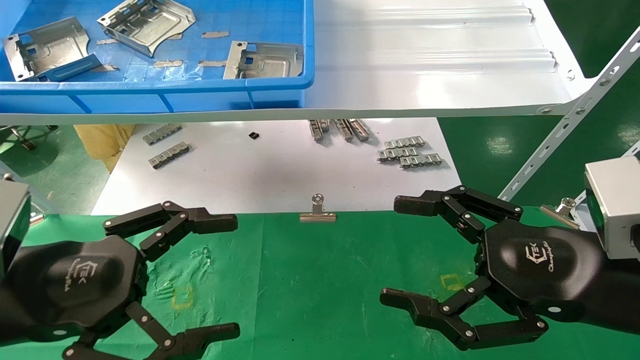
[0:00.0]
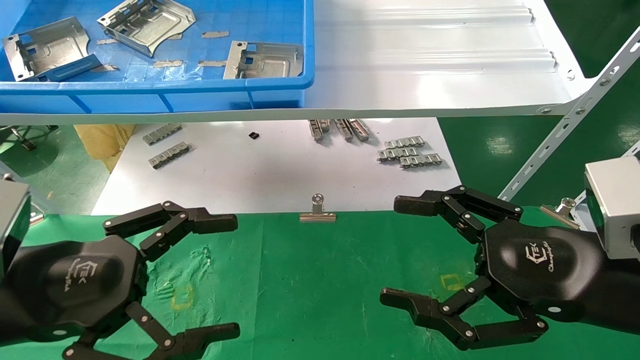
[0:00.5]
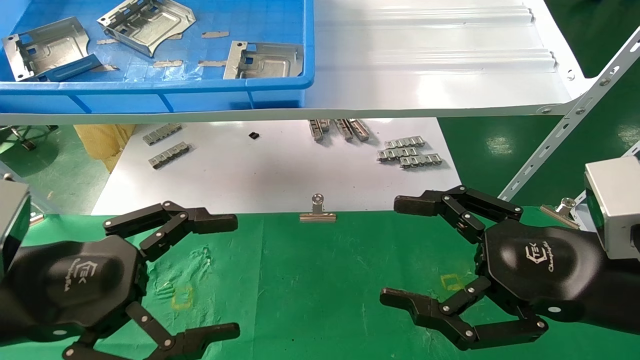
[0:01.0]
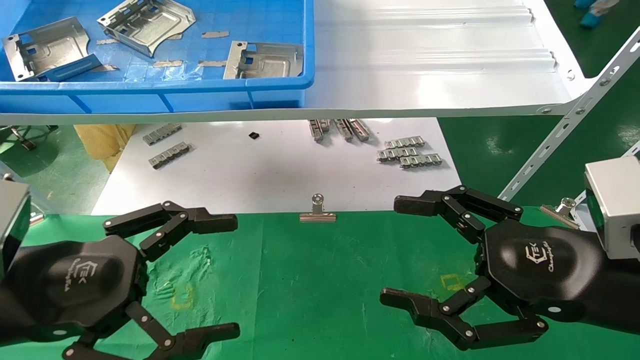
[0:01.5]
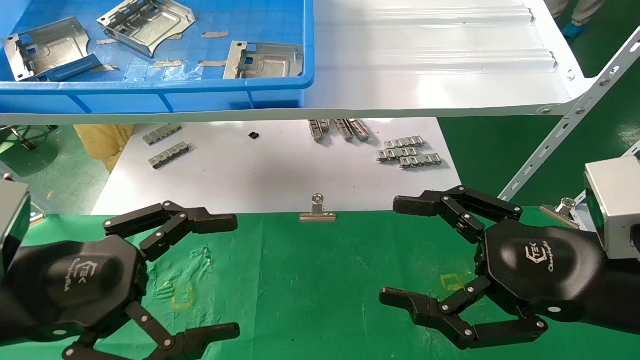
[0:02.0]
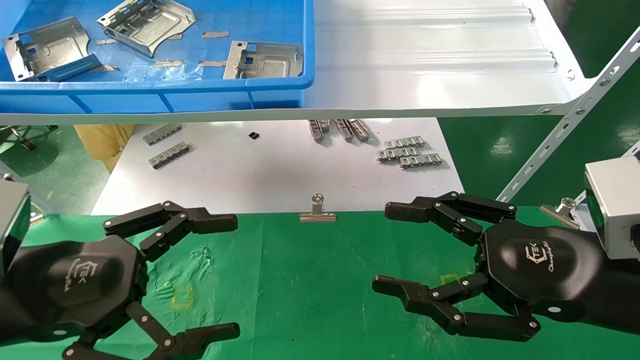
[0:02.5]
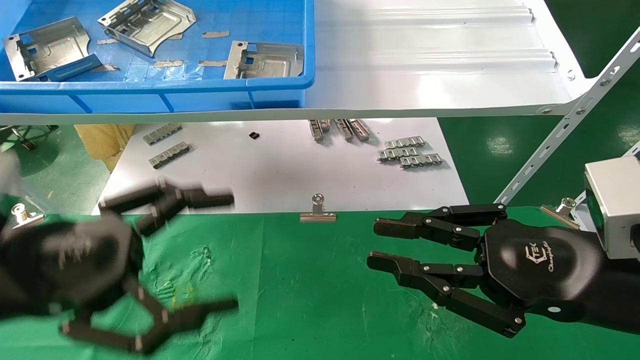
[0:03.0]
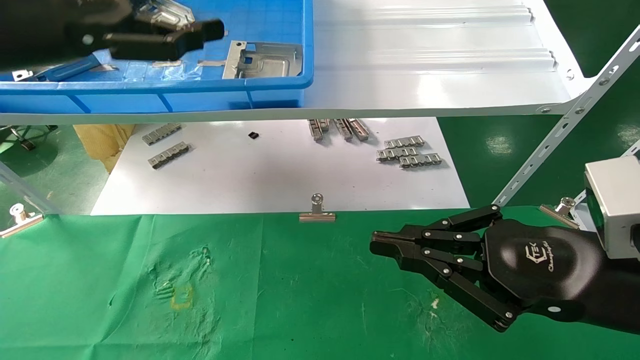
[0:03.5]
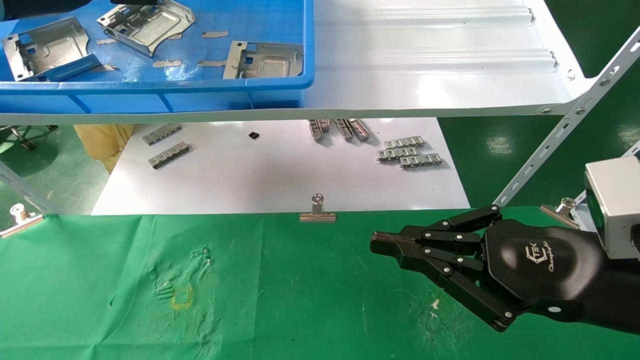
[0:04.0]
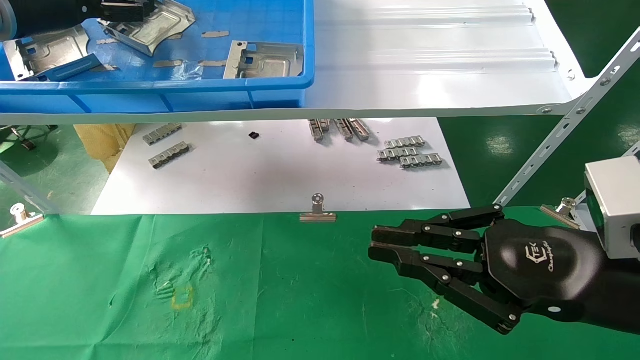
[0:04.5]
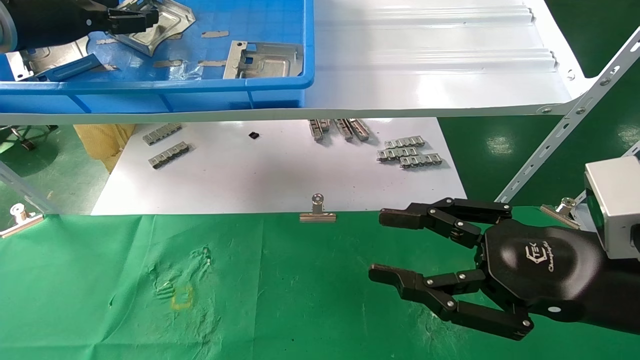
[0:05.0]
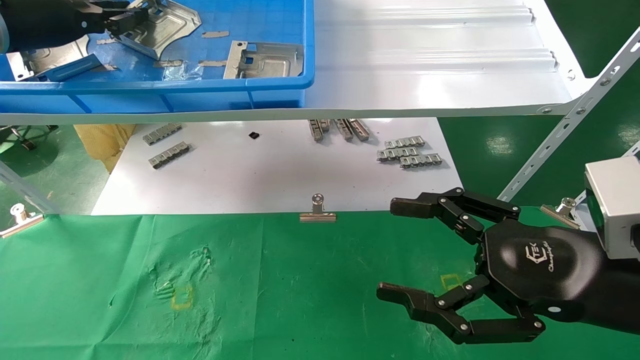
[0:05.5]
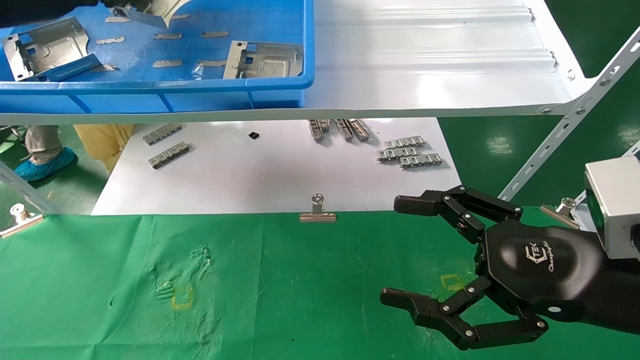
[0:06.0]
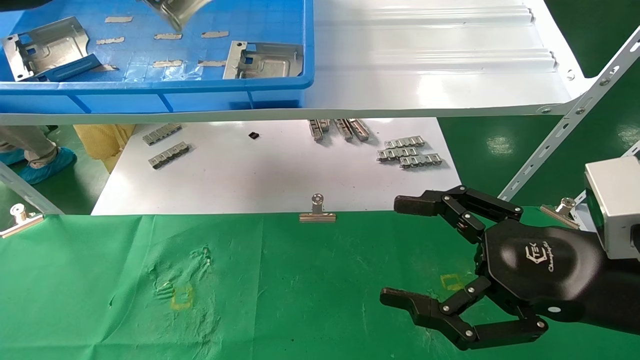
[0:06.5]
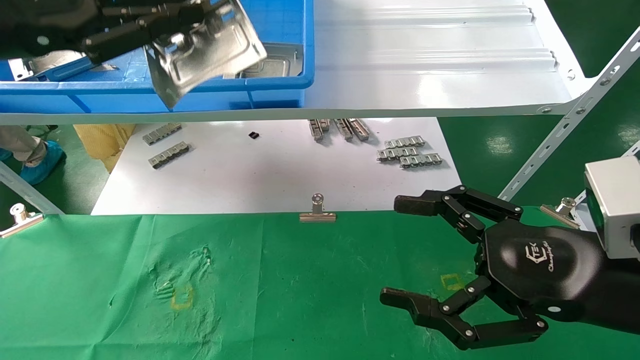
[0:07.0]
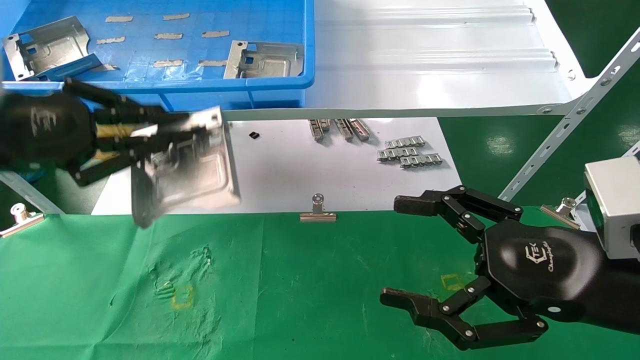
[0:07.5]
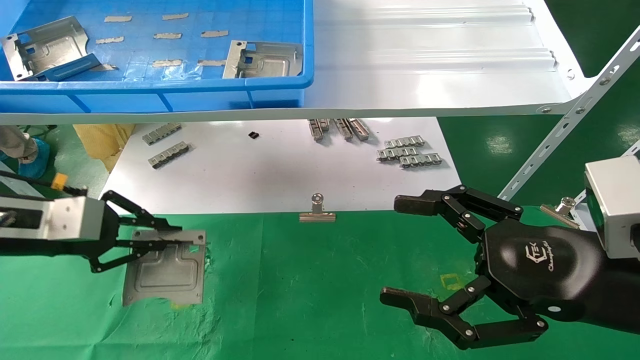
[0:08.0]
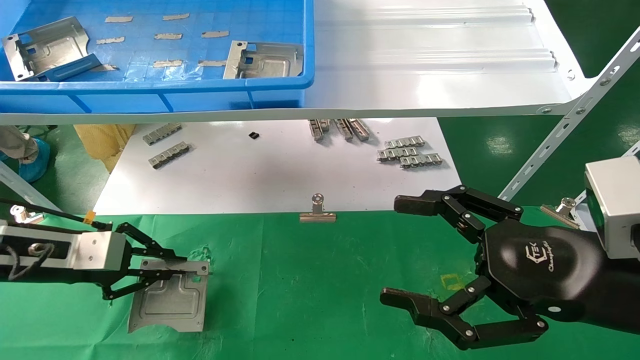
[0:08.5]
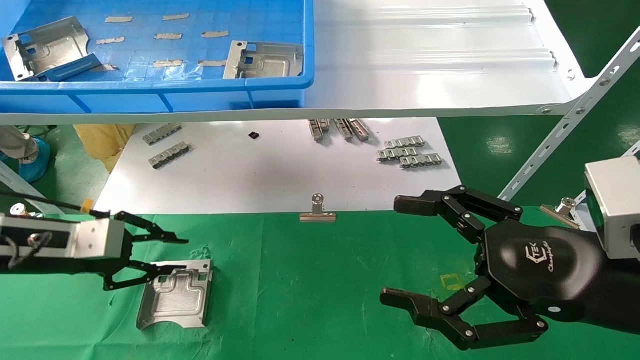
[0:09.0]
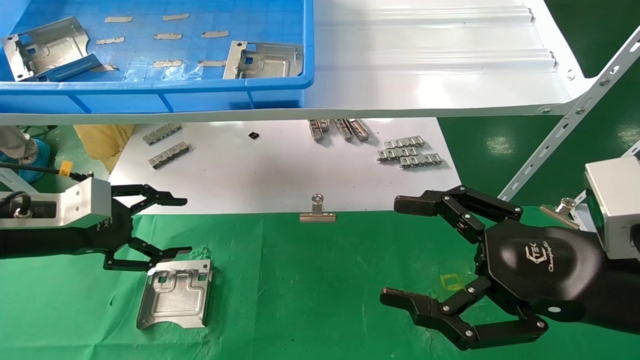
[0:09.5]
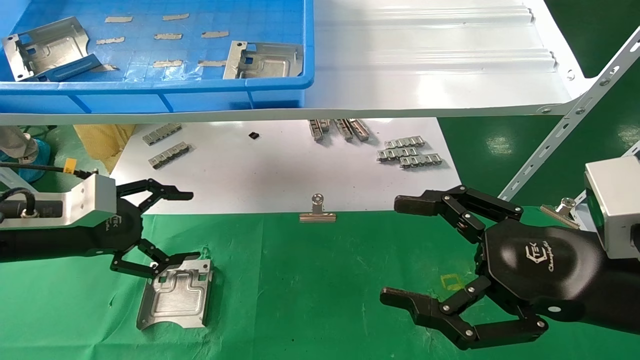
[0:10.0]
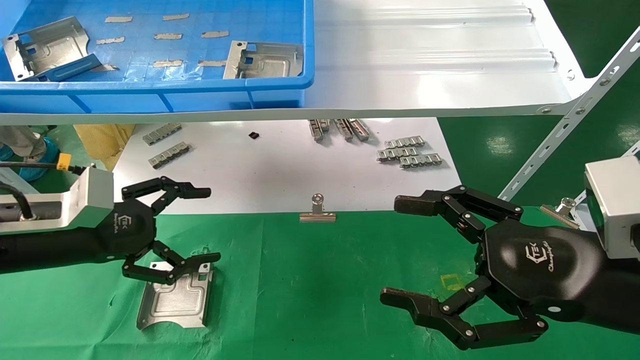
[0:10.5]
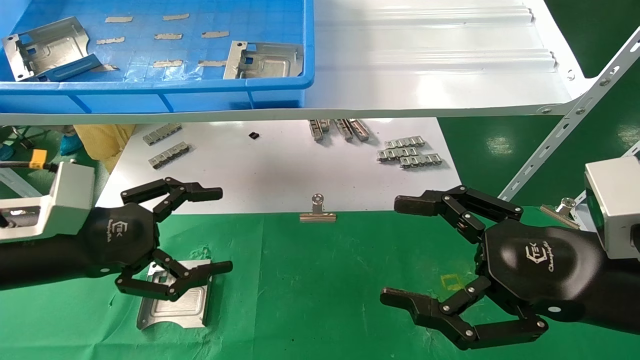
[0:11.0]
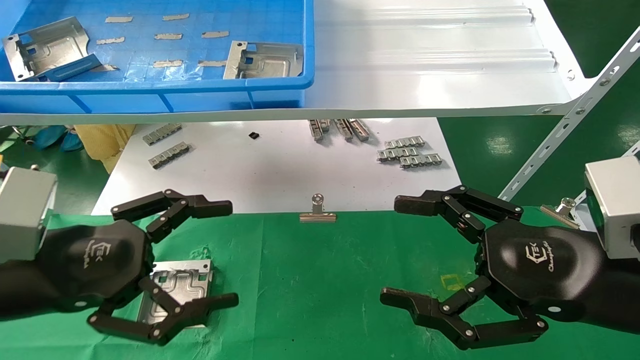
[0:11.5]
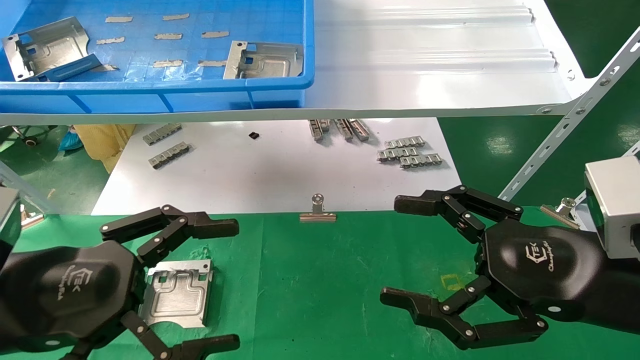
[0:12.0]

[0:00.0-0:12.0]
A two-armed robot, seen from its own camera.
Task of the whole recording: use the mechanical arm to pick up the parts and place them on the table.
Step, 0:03.5 to 0:05.5: Pick up the hard drive bracket from the feeding area.
Step, 0:06.0 to 0:09.0: Place the hard drive bracket into the box.
0:00.0 to 0:02.0: Both grippers stay put.
0:02.0 to 0:04.0: The right gripper closes its fingers. The left gripper goes about 30 cm upward and forward.
0:04.0 to 0:06.0: The right gripper opens its fingers, while the left gripper closes up.
0:06.0 to 0:08.0: The left gripper is displaced downward by approximately 25 cm.
0:08.0 to 0:10.0: The left gripper opens its fingers.
0:10.0 to 0:12.0: The left gripper heads backward and to the right, covering roughly 15 cm.

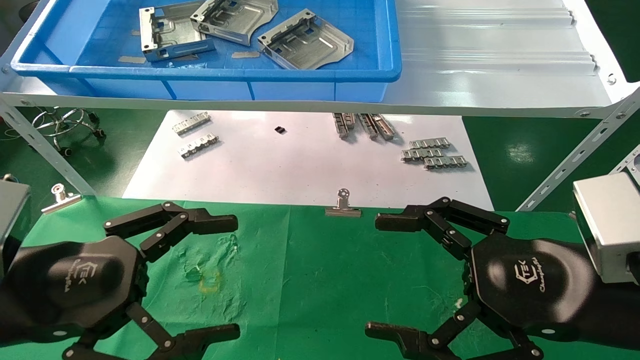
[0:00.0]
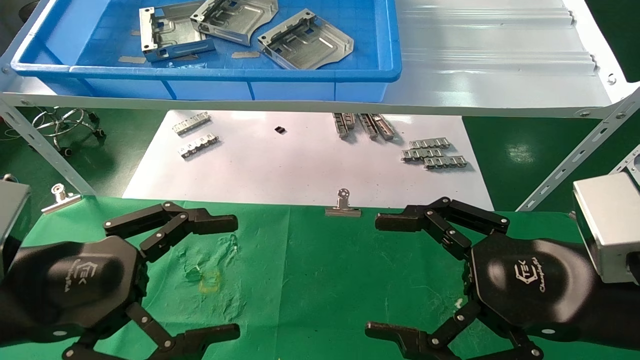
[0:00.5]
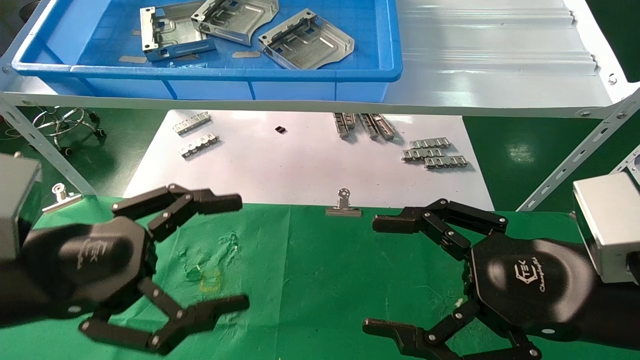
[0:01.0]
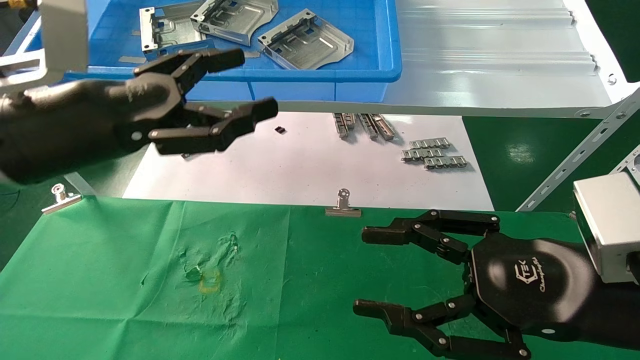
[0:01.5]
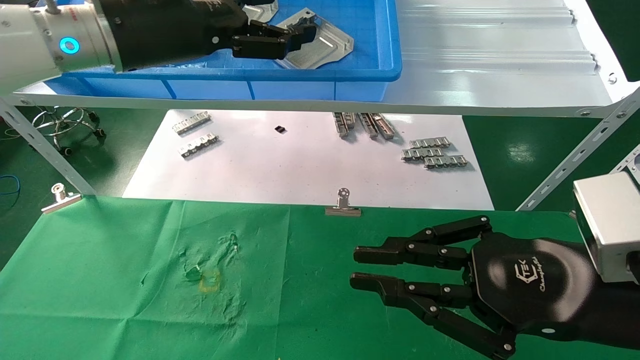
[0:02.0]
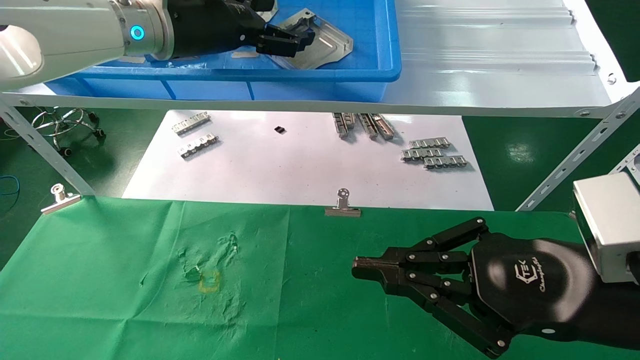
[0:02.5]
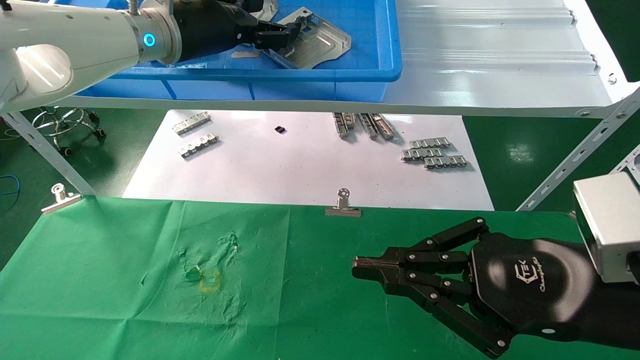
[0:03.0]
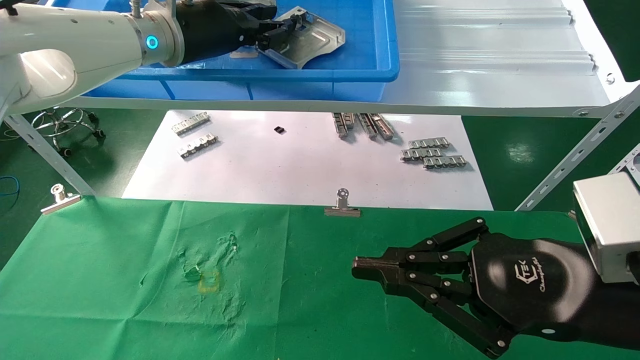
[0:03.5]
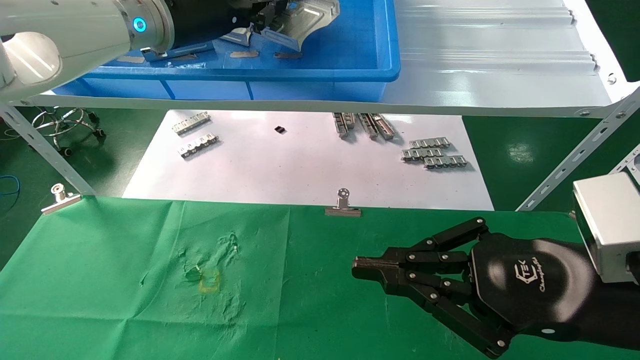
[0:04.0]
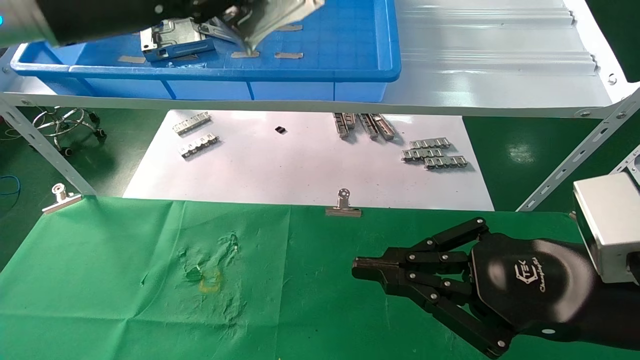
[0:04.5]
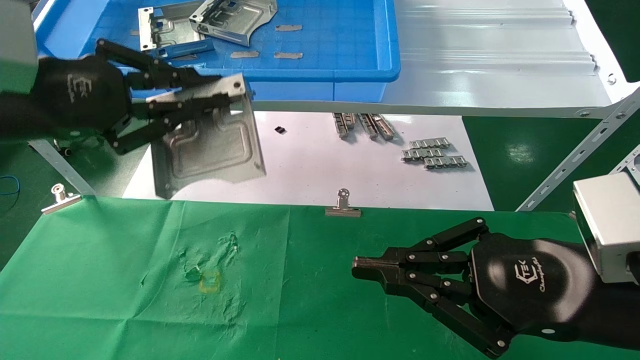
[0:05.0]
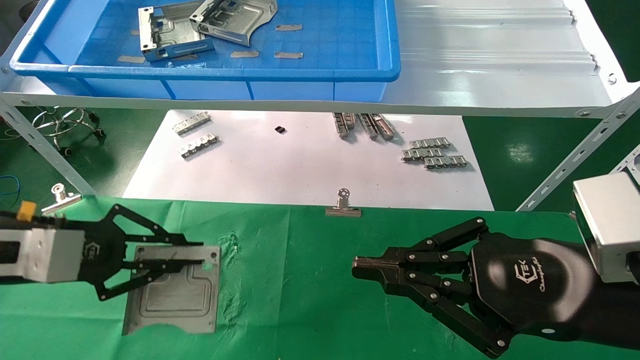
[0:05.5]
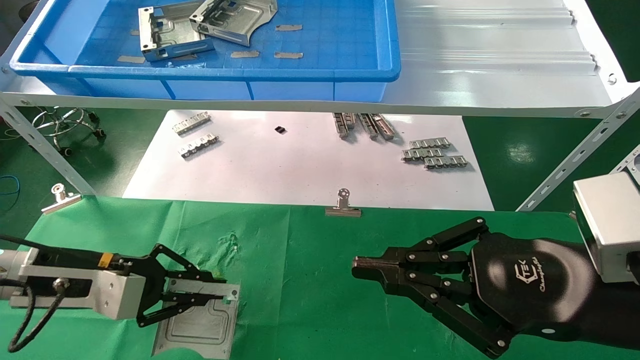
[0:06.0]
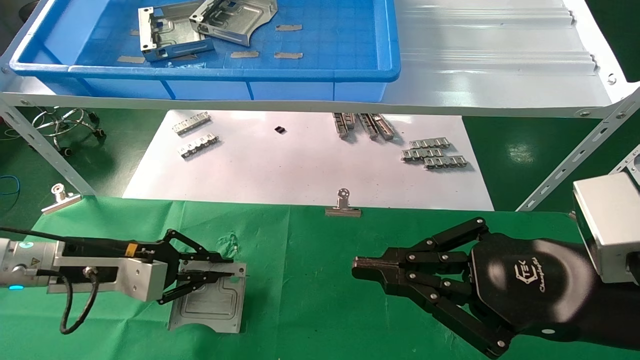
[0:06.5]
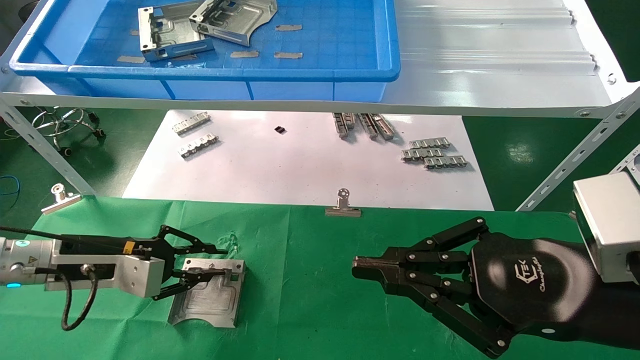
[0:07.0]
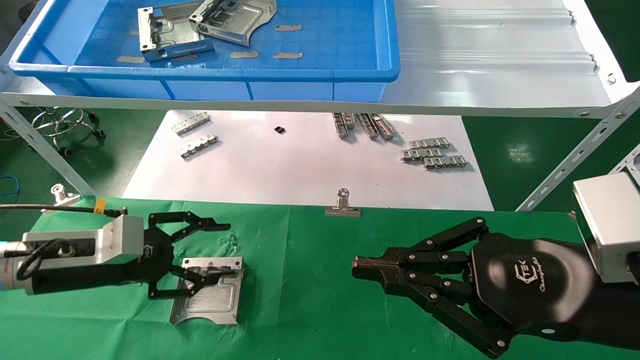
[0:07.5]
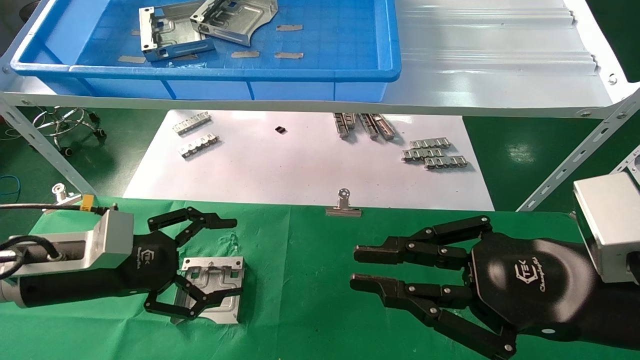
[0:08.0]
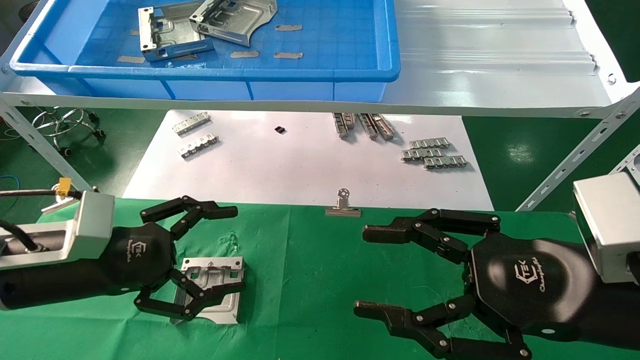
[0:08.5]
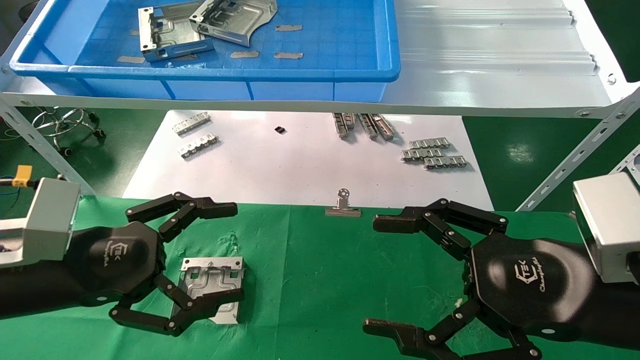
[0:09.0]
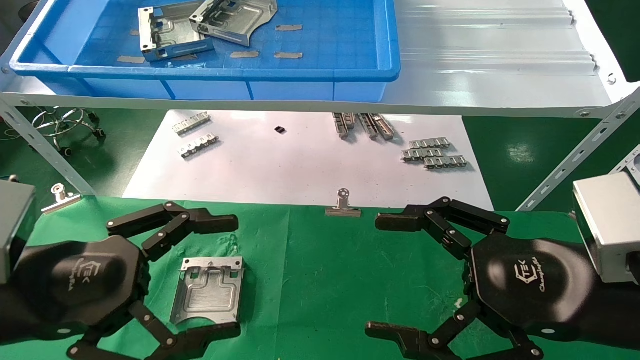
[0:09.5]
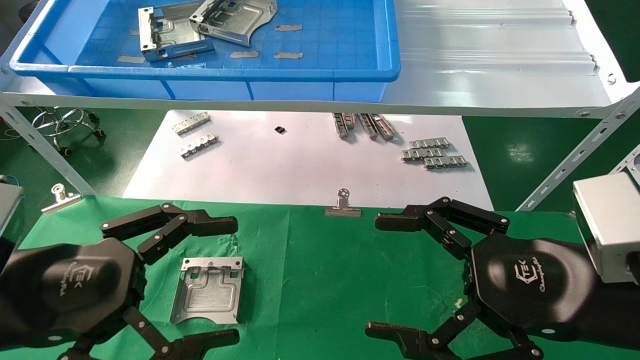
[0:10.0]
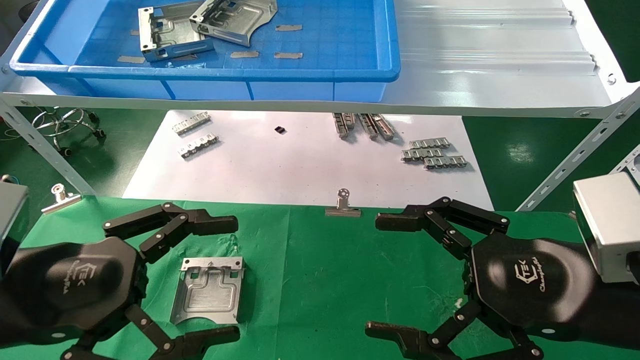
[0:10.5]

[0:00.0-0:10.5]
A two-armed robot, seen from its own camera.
Task of the whole recording: use the mechanical arm to pick up the parts and place them on the table.
Step, 0:01.5 to 0:04.0: Pick up the hard drive bracket from the feeding area.
Step, 0:04.5 to 0:07.0: Place the hard drive bracket into the box.
0:00.0 to 0:02.0: The right gripper closes up. Meanwhile the left gripper moves upward, forward and to the right, some 25 cm.
0:02.0 to 0:04.0: The left gripper moves forward, roughly 5 cm, and closes up.
0:04.0 to 0:06.5: The left gripper is displaced downward and to the left by about 35 cm.
0:06.5 to 0:08.5: The left gripper goes about 5 cm backward, and opens. Meanwhile the right gripper opens.
0:08.5 to 0:10.5: The left gripper shifts roughly 10 cm backward; the right gripper opens.
